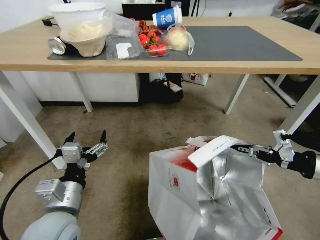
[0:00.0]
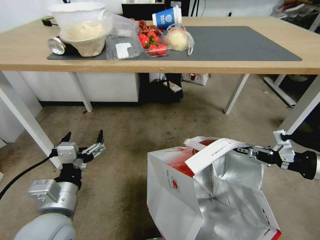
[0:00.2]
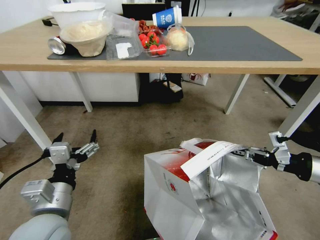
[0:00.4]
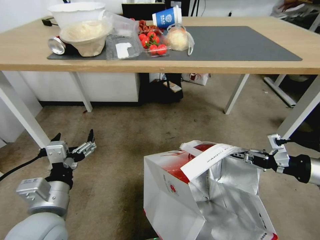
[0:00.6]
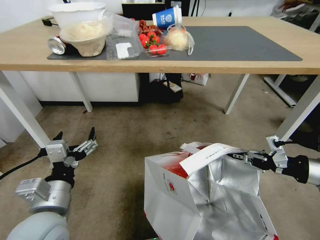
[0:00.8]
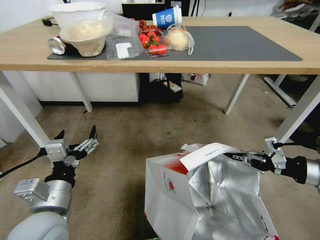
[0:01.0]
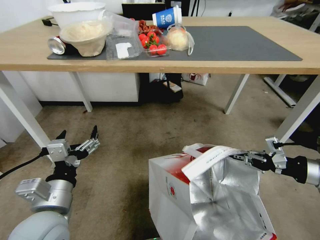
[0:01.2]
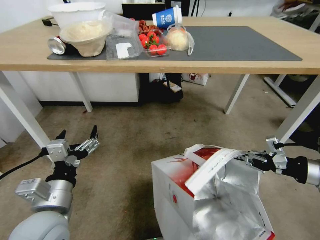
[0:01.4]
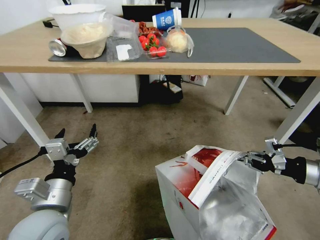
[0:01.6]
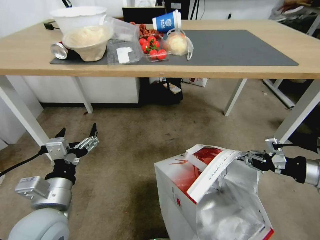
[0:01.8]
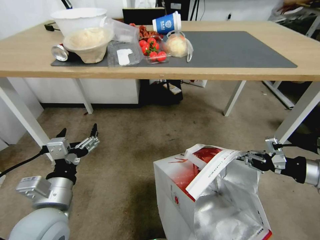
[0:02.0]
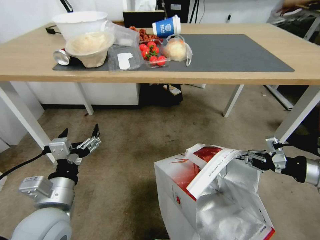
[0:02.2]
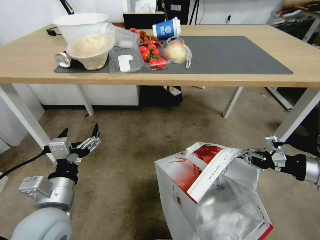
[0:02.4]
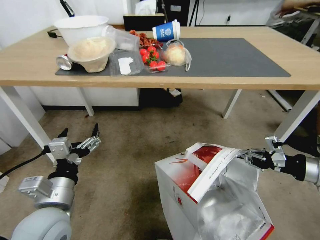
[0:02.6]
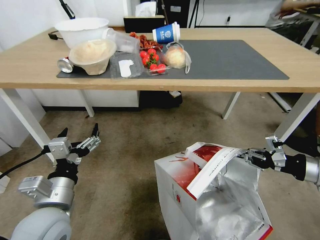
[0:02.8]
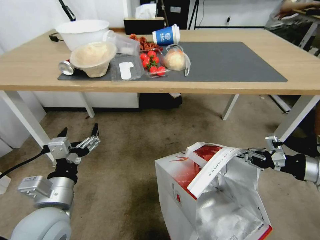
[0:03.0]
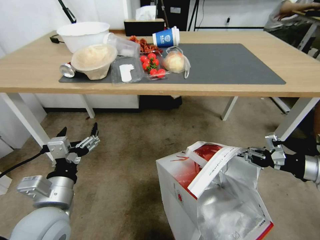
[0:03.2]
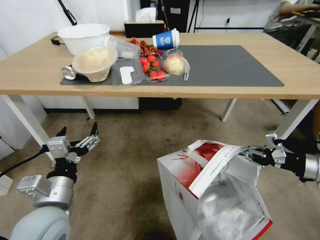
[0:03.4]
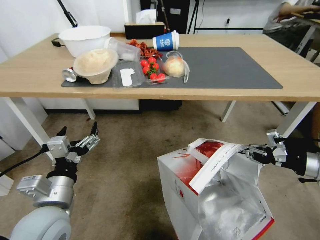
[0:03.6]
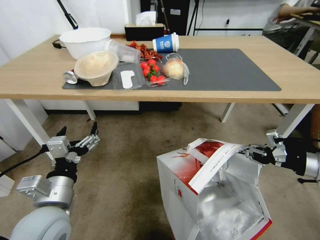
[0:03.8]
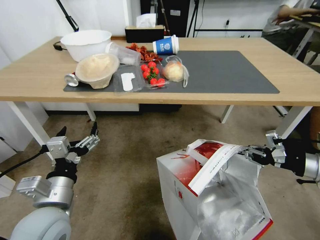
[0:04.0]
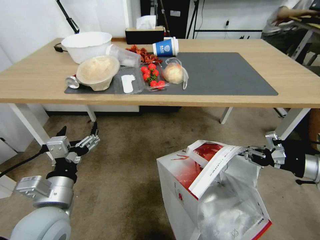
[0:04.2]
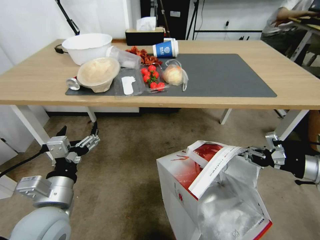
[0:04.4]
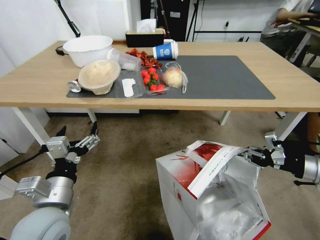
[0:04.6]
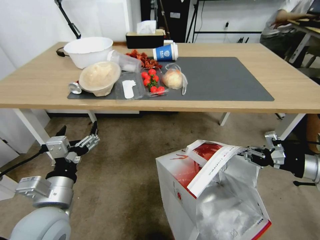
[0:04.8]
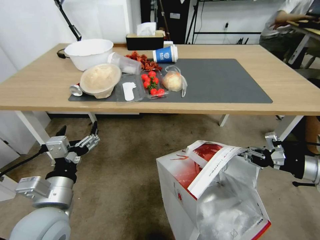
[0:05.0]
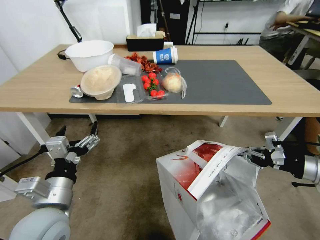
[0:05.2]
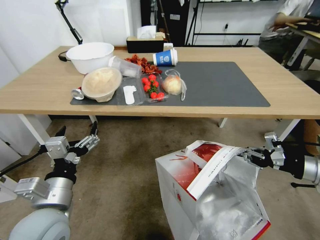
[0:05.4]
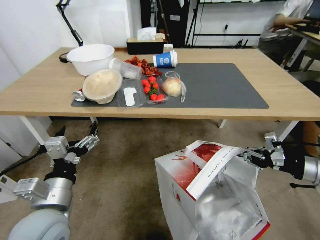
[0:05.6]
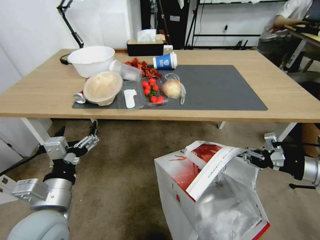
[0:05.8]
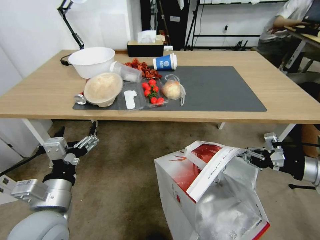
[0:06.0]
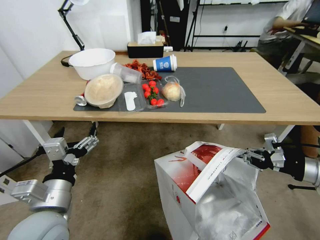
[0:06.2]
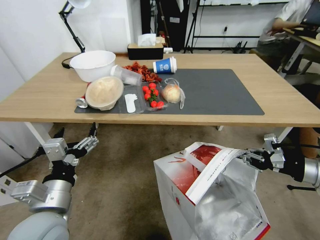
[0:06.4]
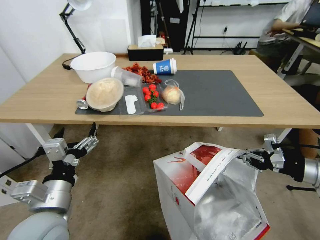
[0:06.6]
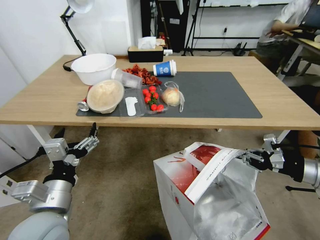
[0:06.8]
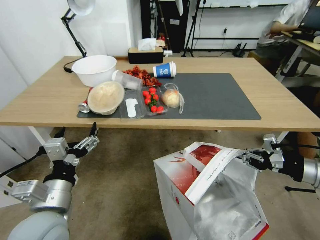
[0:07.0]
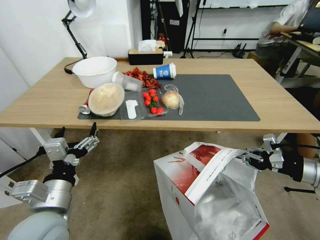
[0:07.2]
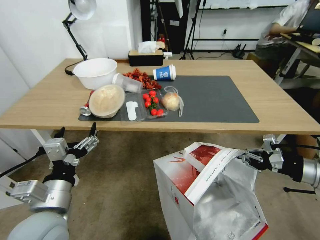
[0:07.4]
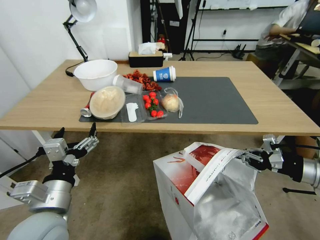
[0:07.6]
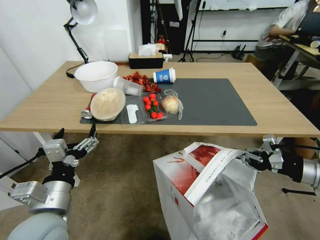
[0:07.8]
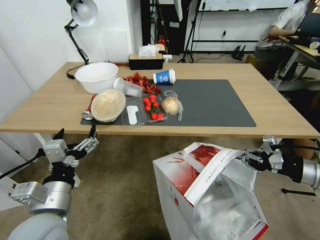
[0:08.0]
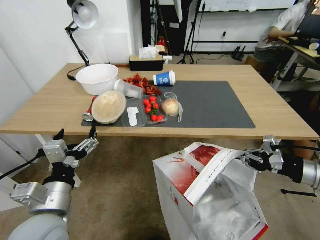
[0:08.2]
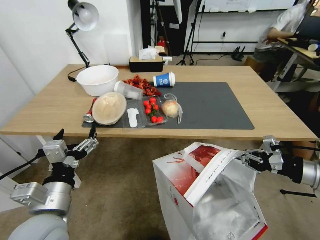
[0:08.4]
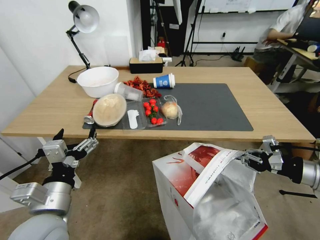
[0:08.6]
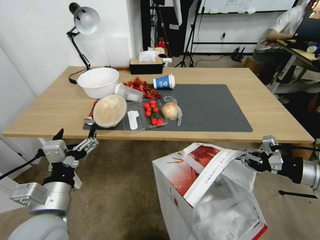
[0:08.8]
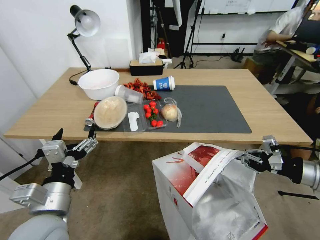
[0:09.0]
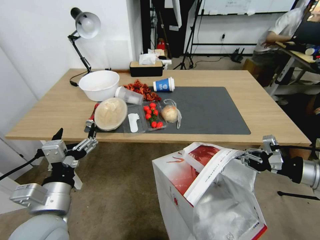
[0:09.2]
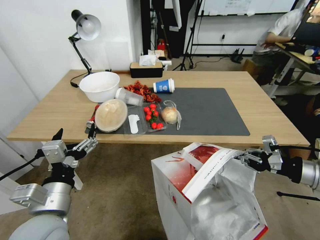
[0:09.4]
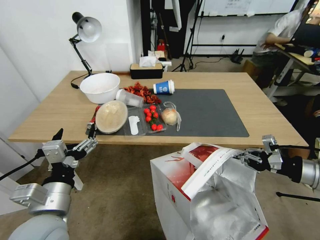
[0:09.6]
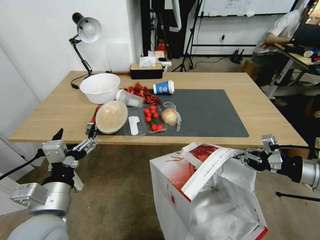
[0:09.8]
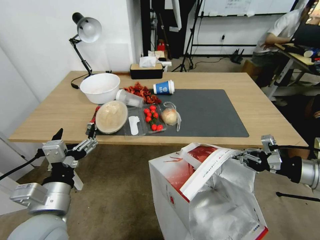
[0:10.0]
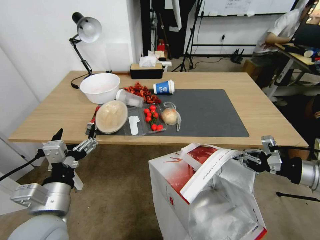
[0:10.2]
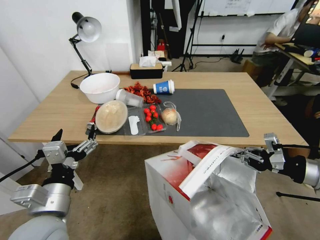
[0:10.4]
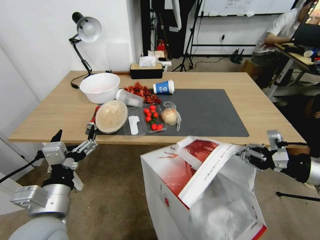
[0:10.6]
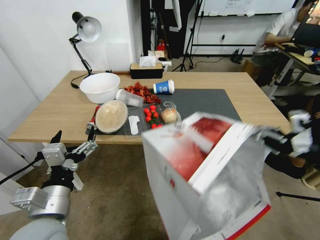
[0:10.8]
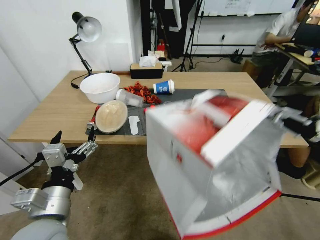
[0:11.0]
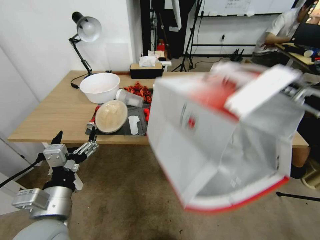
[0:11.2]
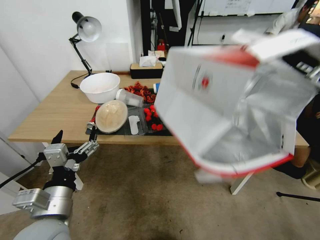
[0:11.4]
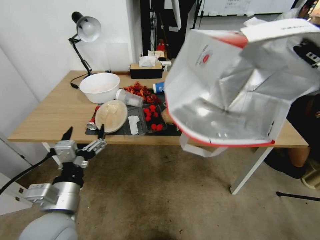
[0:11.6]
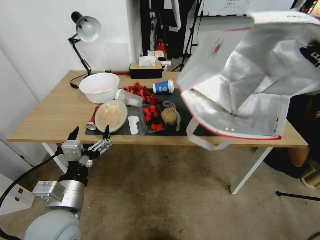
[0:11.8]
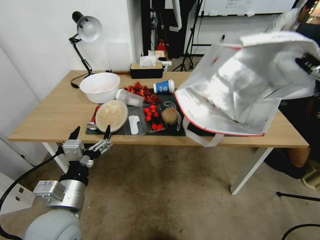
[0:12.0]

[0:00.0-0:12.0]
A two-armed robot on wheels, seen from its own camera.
Task of the whole recording: Pick up the food delivery bag from the floor and place it on the table.
0:10.4 to 0:12.0: The right gripper shifts some 10 cm upward.

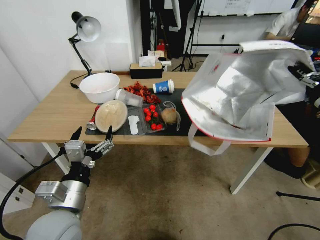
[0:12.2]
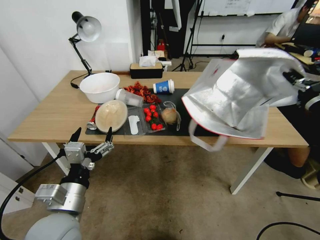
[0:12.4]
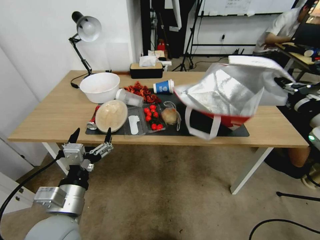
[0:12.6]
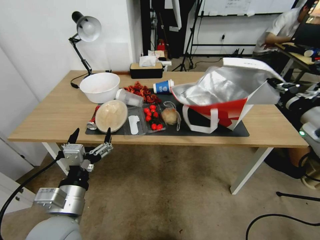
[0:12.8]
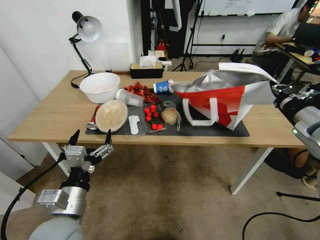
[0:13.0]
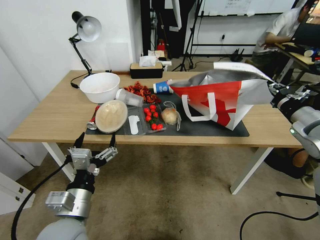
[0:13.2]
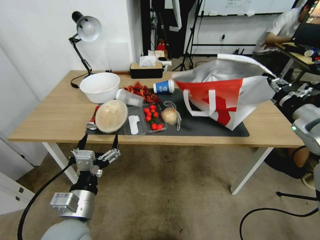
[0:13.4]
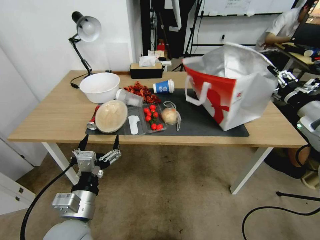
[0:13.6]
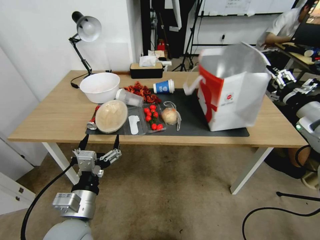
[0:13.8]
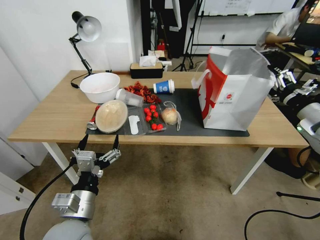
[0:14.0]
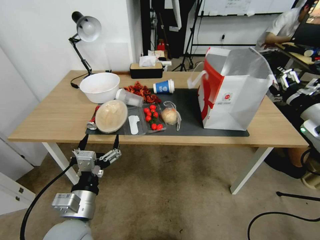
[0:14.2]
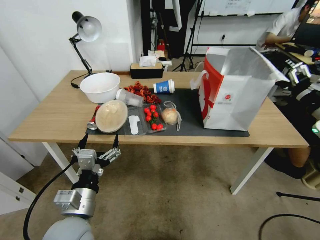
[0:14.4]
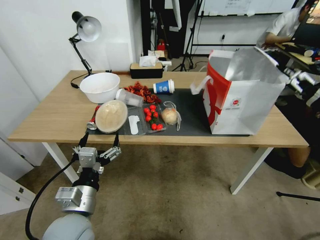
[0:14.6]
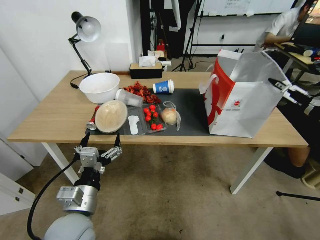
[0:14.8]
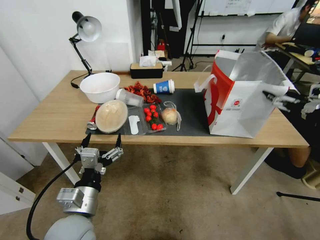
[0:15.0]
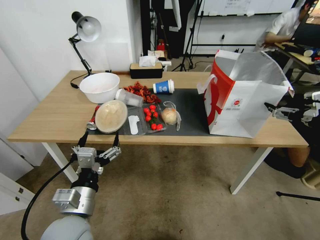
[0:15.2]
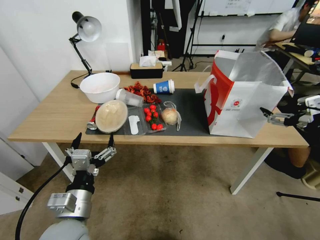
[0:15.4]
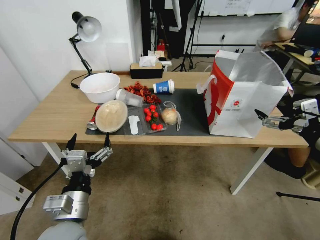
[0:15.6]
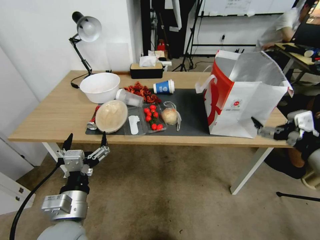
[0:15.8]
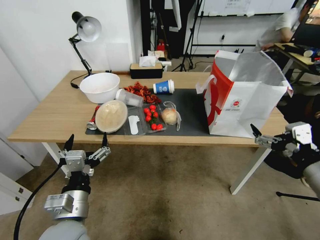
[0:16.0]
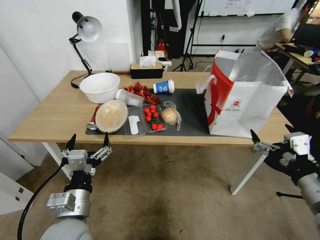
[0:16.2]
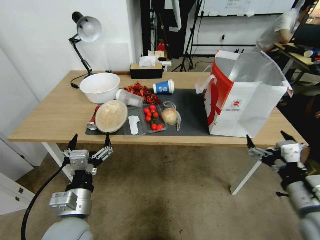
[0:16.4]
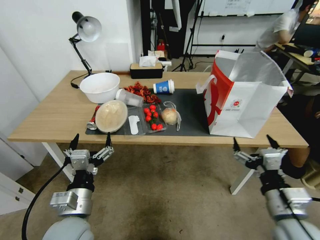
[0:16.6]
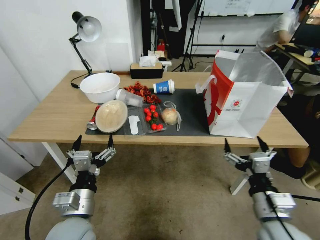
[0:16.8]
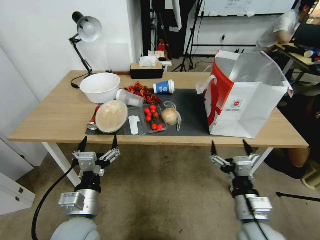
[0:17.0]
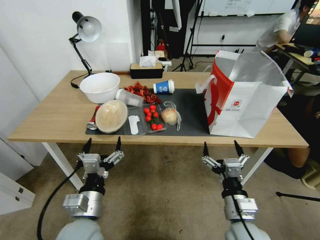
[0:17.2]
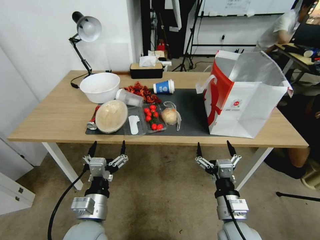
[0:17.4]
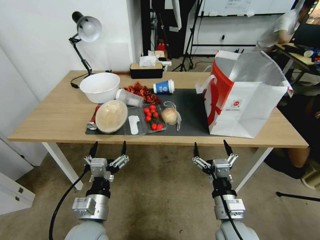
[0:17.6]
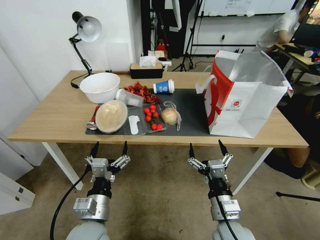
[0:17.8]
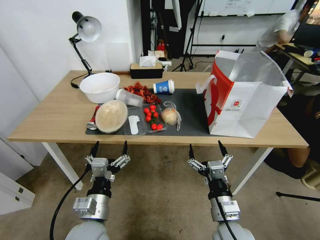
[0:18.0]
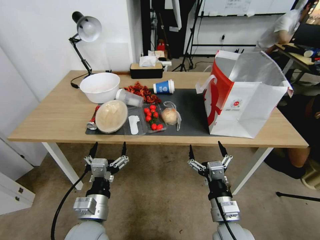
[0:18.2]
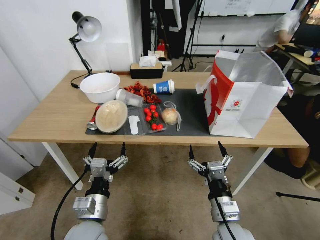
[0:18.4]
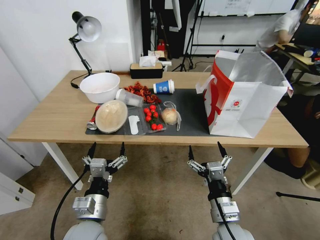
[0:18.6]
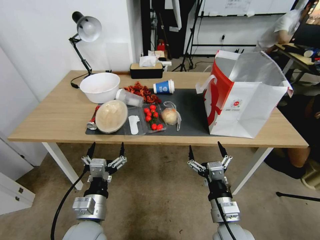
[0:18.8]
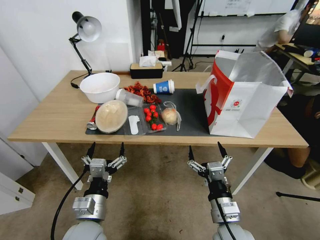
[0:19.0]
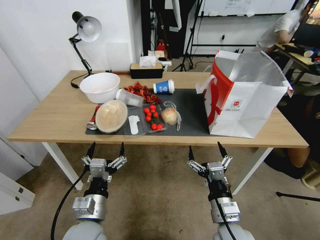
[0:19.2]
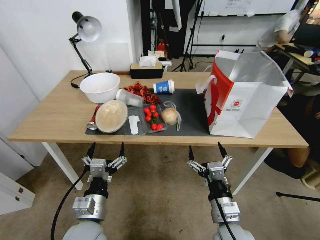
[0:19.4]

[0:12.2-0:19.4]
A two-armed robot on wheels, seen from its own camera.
Task of the whole recording: Pick up the food delivery bag from the floor and place it on the table.
0:12.2 to 0:13.6: The right gripper is displaced forward and downward by some 15 cm, and opens its fingers.
0:13.6 to 0:15.0: The right gripper shifts some 5 cm backward, and opens.
0:15.0 to 0:16.6: The right gripper moves to the left, downward and backward, roughly 25 cm.
0:16.6 to 0:18.0: The left gripper ends up about 5 cm from where it was; the right gripper goes roughly 15 cm to the left and downward.
0:18.0 to 0:19.4: Both grippers stay about where they are.
